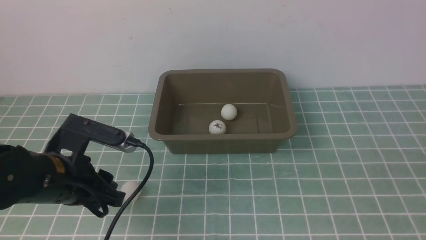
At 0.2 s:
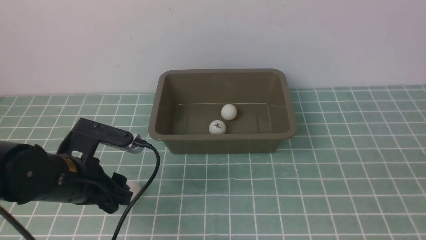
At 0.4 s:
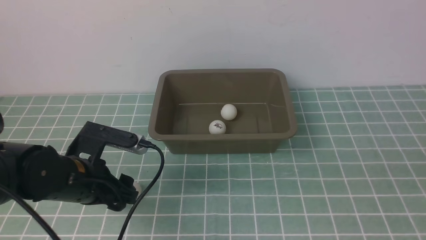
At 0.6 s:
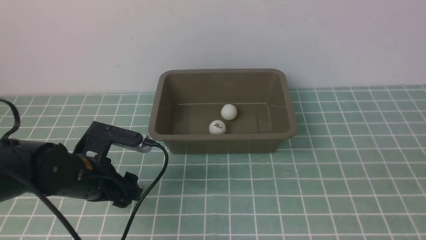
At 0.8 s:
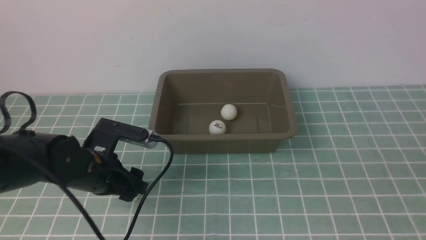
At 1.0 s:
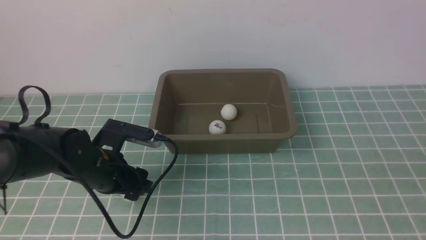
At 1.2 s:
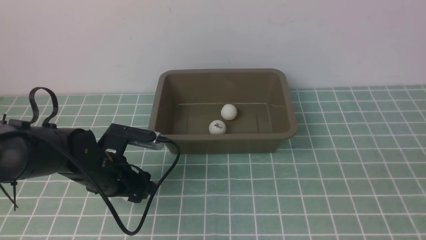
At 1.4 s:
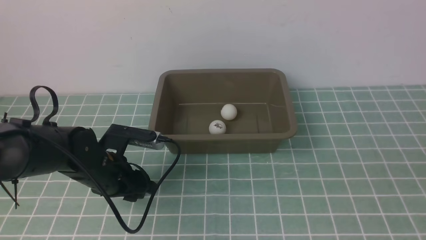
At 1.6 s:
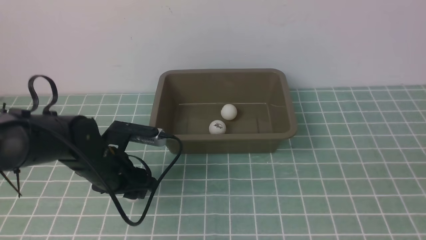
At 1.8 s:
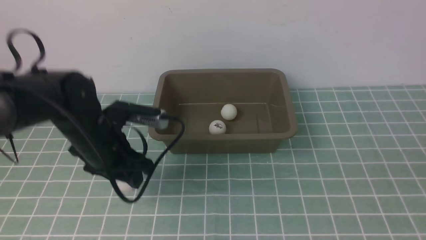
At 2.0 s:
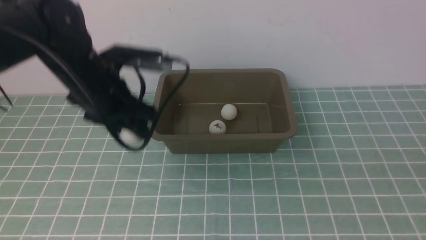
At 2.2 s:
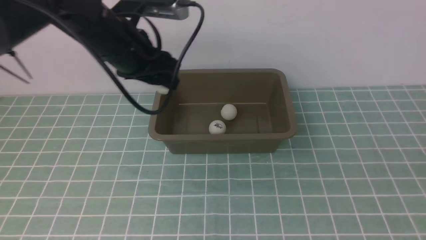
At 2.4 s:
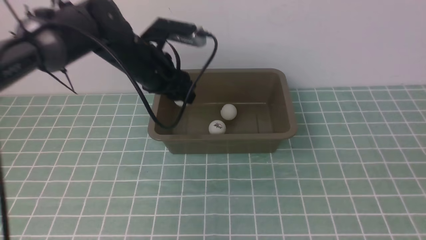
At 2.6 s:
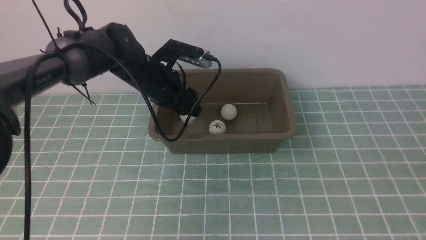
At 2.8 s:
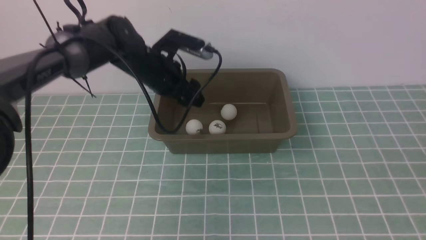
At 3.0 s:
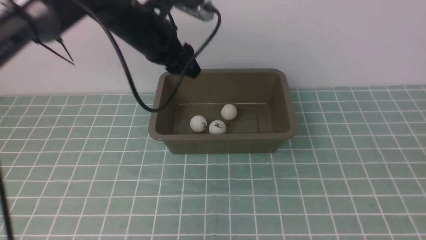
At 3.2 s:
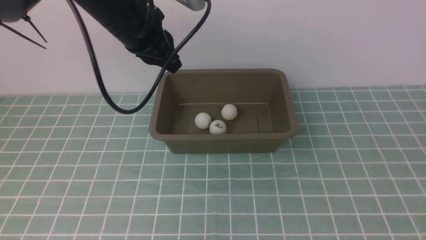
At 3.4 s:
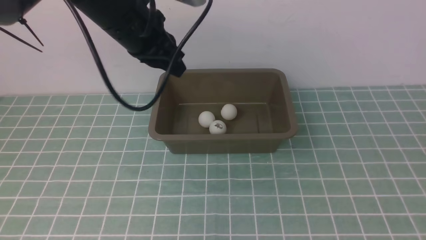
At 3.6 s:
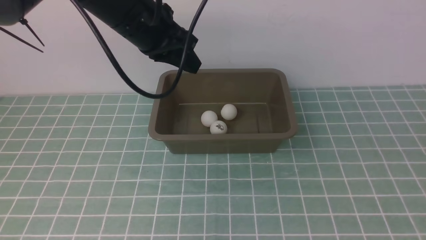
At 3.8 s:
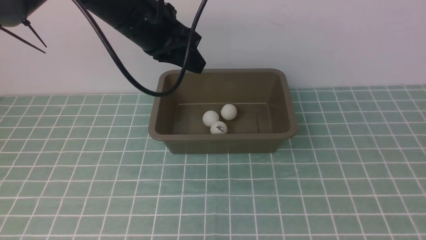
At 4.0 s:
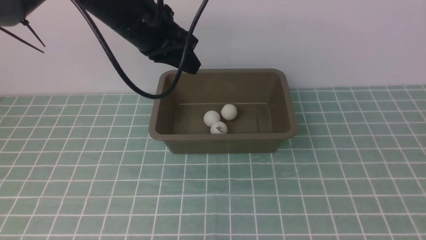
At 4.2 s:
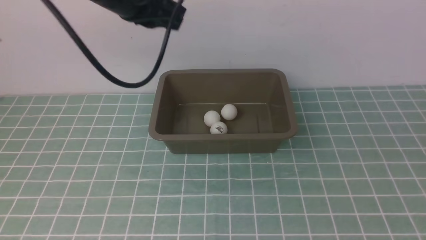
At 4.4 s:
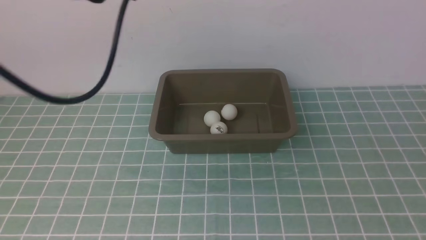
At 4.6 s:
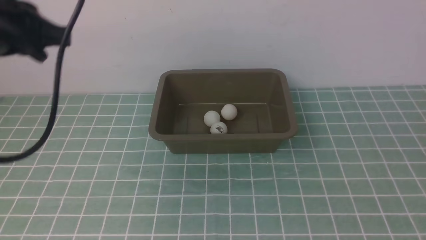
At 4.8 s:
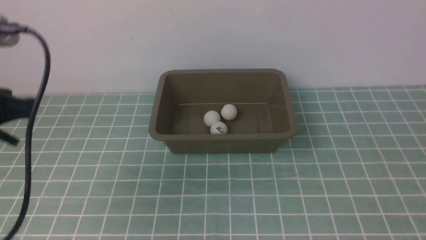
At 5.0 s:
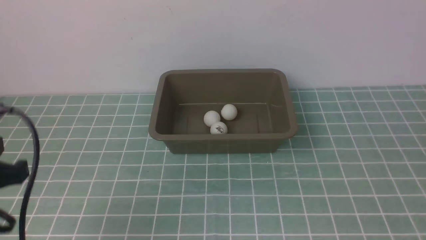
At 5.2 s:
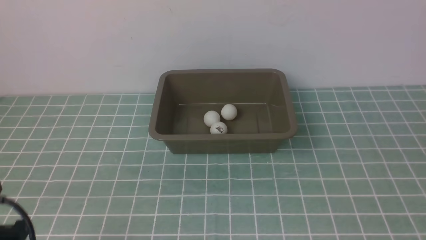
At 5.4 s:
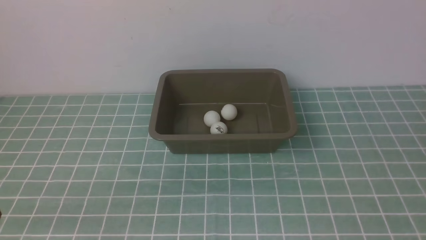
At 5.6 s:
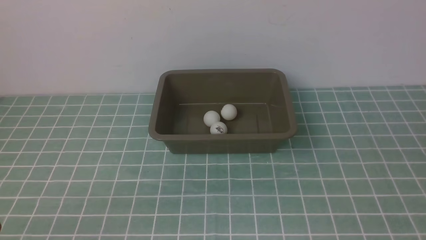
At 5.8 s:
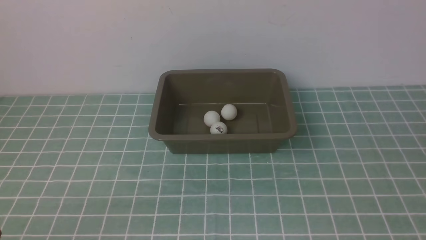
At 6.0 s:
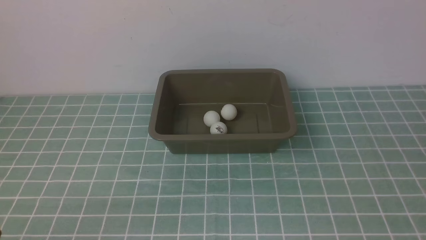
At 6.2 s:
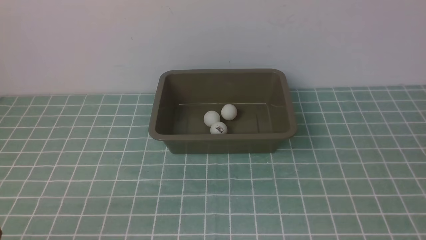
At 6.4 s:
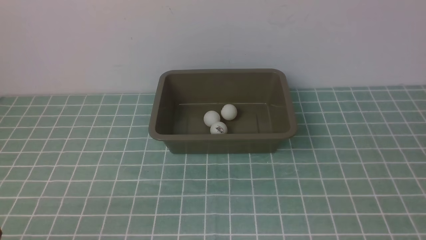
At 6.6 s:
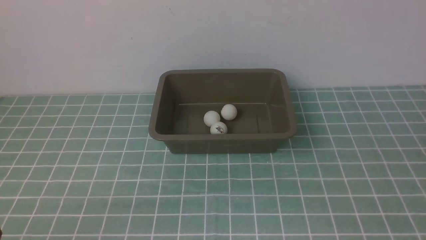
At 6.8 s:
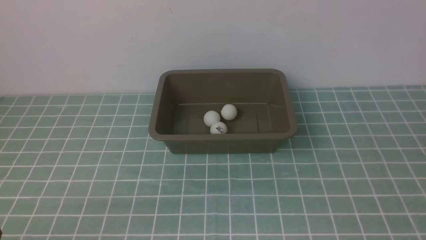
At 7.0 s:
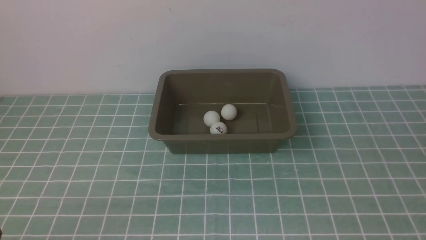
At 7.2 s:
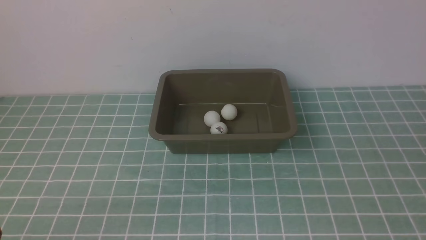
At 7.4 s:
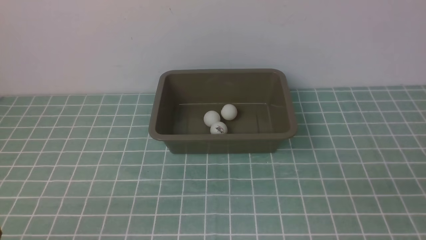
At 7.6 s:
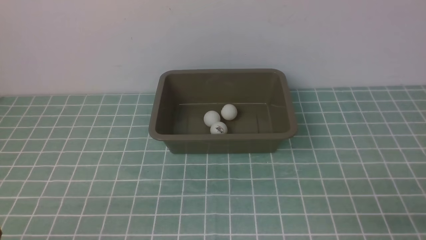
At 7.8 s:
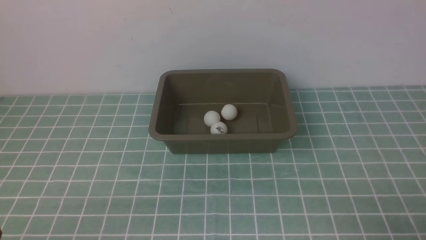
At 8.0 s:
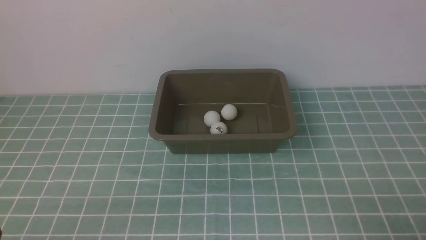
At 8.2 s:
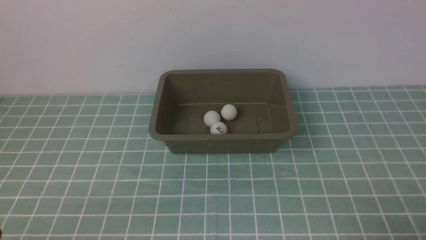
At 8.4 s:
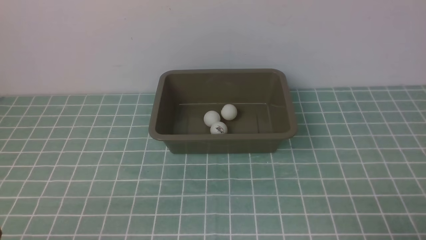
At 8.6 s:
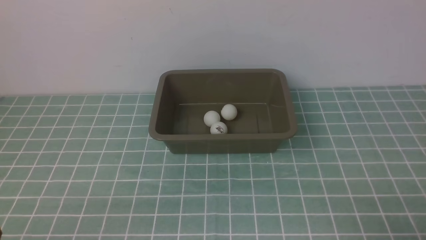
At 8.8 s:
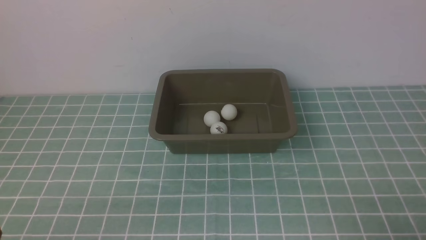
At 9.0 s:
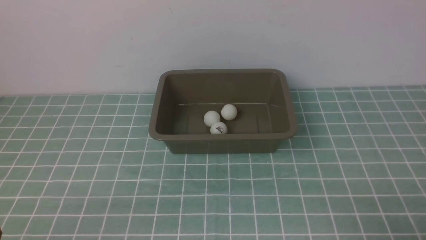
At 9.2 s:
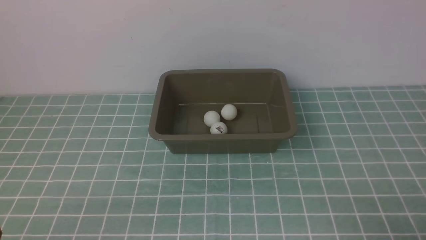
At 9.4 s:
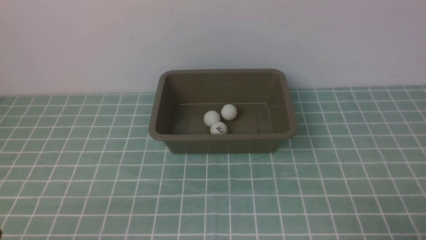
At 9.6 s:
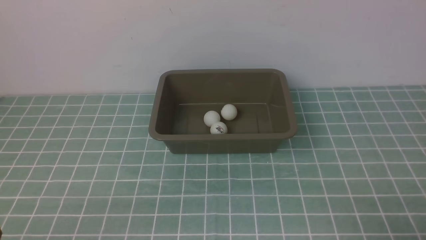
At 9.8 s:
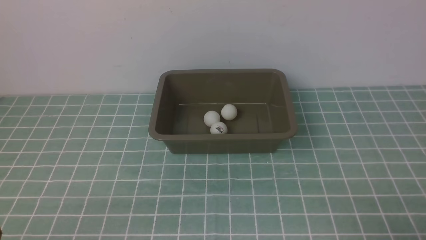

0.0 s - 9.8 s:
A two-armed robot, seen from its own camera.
Step, 2.0 s - 2.8 s: use the left arm to put the table tennis ball into the box.
0.0 s - 1.4 s: The left gripper moves forward, approximately 5 cm.
1.4 s - 2.8 s: The left gripper goes approximately 15 cm forward, upward and to the right.
2.8 s - 4.2 s: The left gripper travels upward and backward by about 15 cm, and closes up.
4.2 s - 5.6 s: The left gripper is displaced backward, downward and to the left by roughly 40 cm.
8.4 s - 9.8 s: The two grippers keep their place.

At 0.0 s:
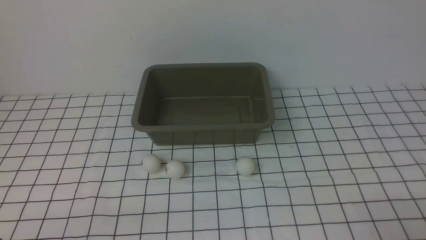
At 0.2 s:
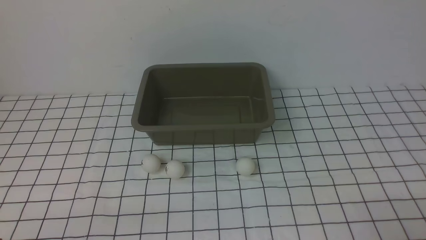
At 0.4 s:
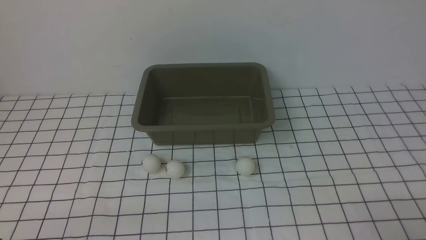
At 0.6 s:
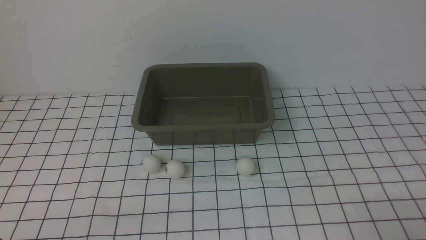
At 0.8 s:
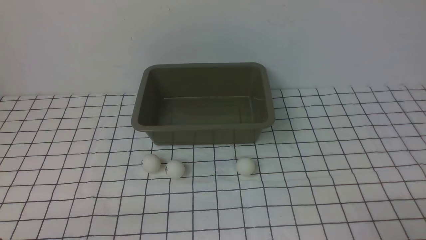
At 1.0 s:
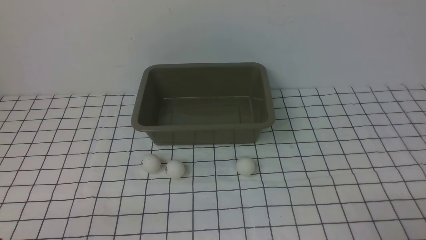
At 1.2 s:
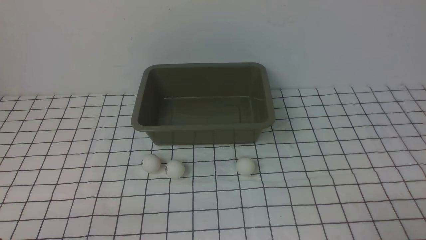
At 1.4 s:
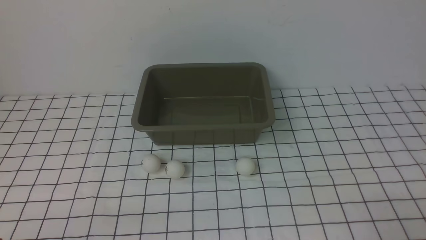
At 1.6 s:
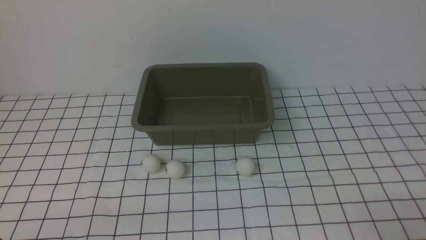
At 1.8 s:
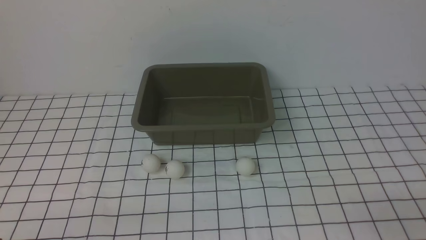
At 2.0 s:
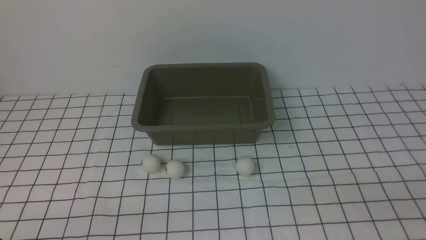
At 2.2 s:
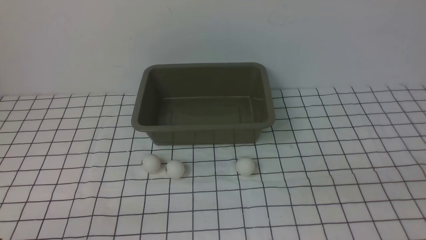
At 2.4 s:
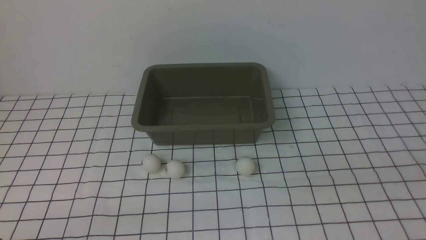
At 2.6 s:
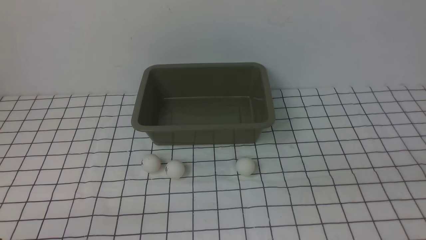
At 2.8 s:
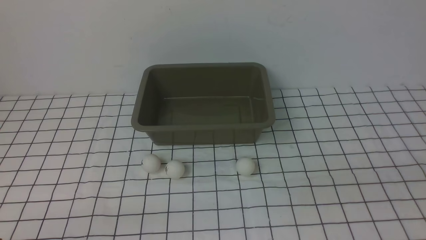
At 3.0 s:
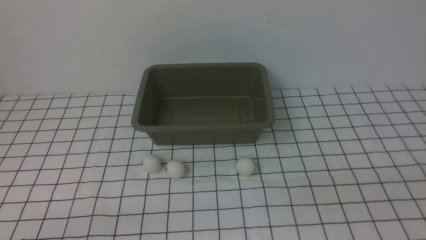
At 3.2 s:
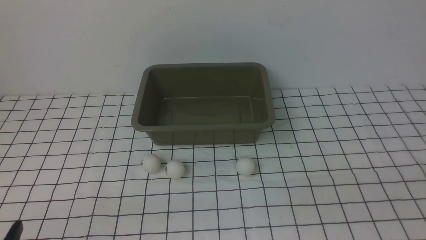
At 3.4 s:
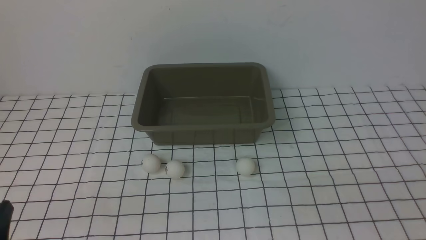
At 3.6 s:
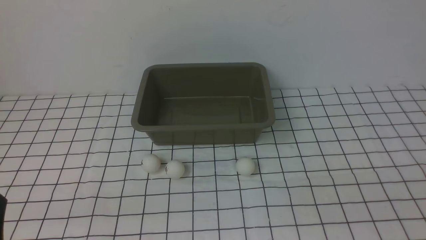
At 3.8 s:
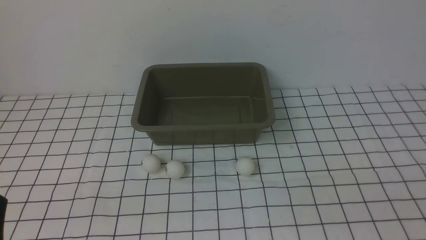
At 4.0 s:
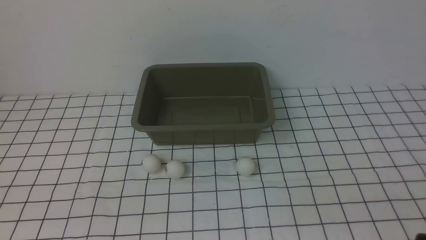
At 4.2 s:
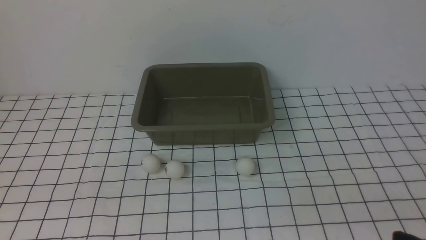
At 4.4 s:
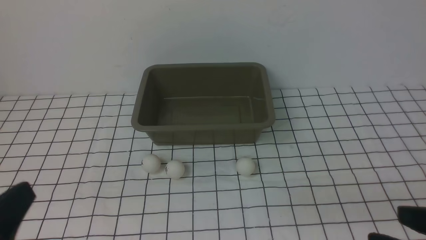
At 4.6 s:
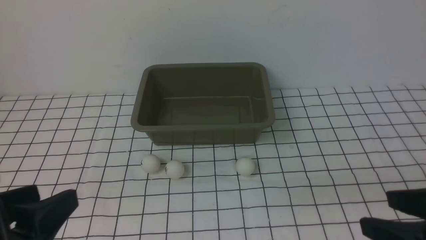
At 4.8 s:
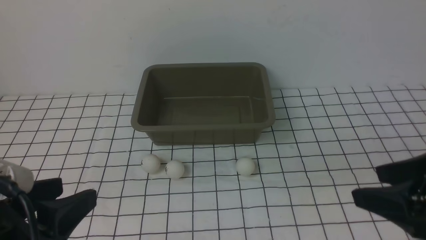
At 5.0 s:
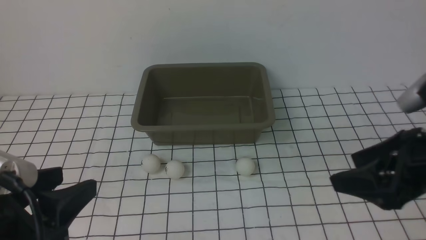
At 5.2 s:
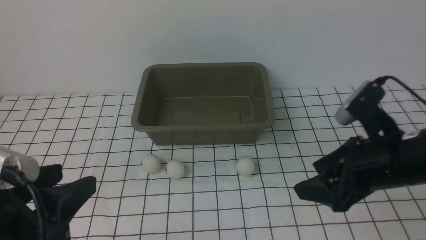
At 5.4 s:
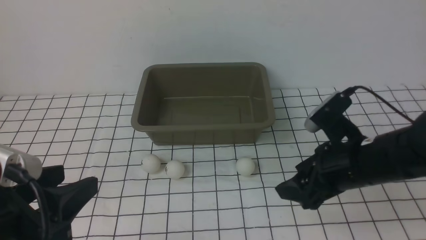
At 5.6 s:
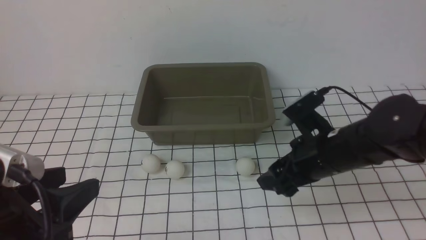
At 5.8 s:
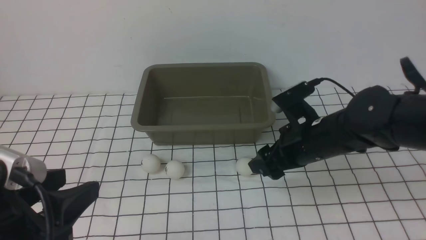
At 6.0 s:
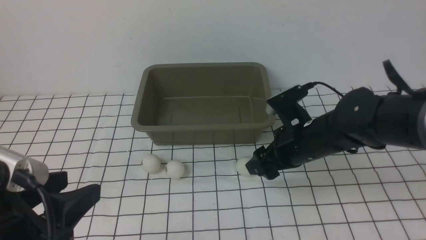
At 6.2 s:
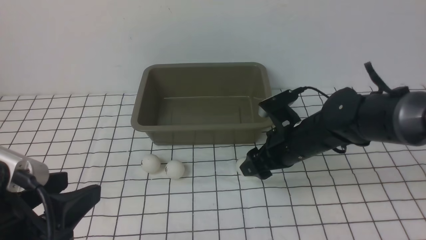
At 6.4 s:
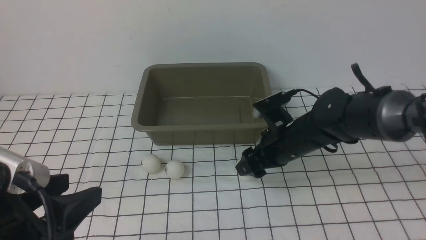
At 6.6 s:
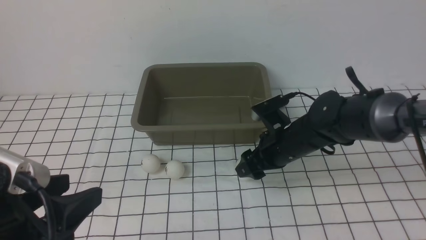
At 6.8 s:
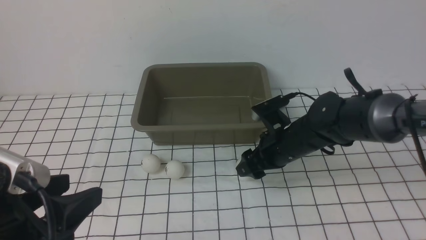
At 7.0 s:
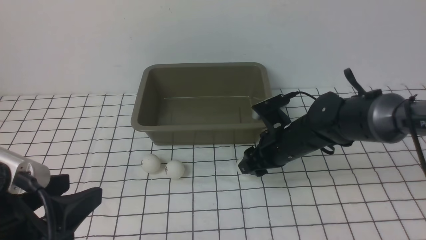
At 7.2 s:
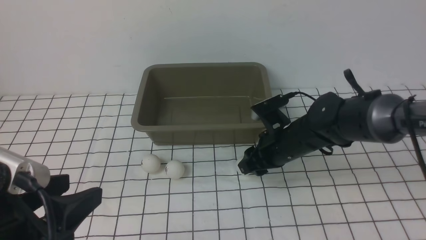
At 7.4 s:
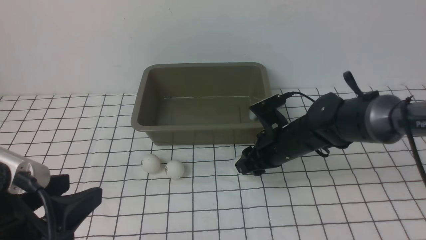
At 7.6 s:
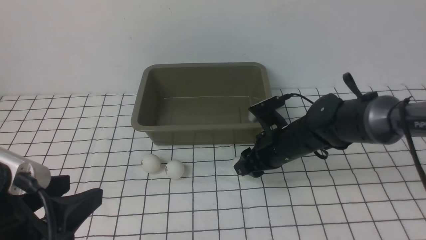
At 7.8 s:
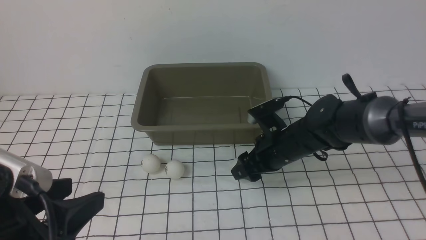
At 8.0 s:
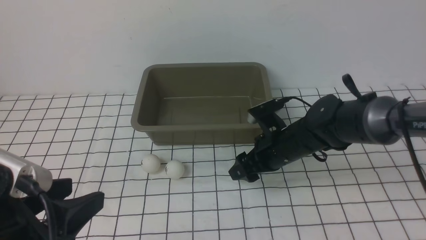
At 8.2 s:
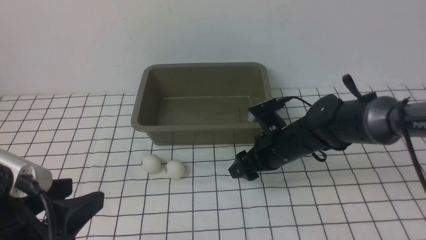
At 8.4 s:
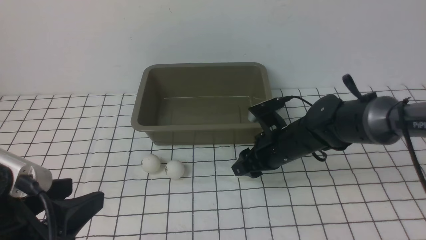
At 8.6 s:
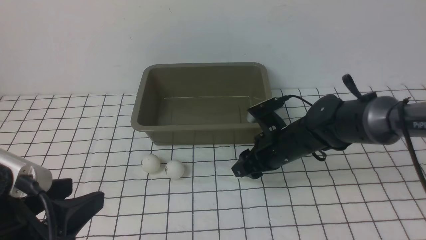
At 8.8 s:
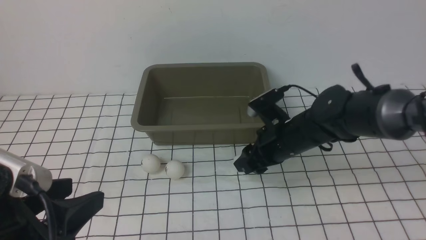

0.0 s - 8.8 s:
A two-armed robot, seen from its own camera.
3.0 s - 4.4 s: The right gripper goes approximately 5 cm forward, while the left gripper moves upward, about 10 cm, and opens.
4.4 s - 5.8 s: The left gripper shifts approximately 5 cm forward, while the right gripper travels forward and to the left by some 25 cm.
5.8 s - 7.4 s: The right gripper ends up approximately 5 cm from where it was, and closes its fingers.
7.4 s - 8.8 s: The right gripper opens, then closes once more.
